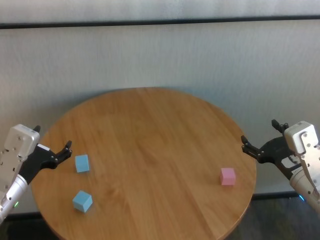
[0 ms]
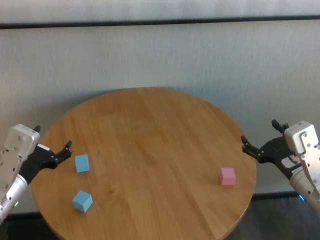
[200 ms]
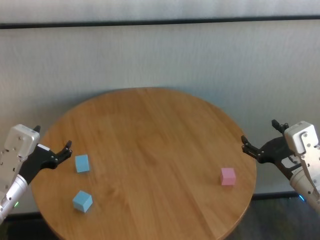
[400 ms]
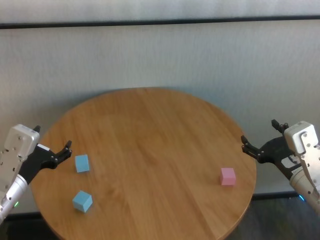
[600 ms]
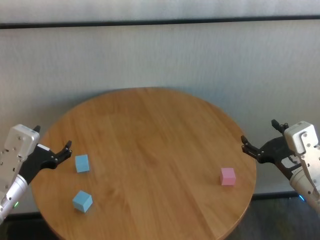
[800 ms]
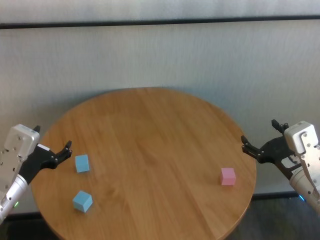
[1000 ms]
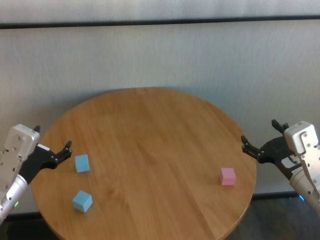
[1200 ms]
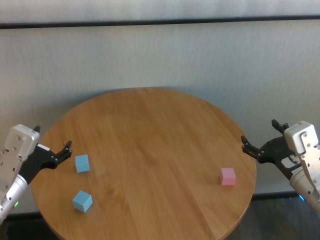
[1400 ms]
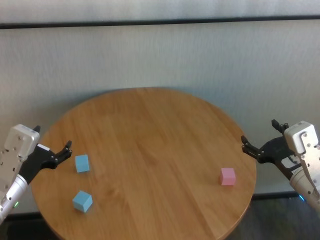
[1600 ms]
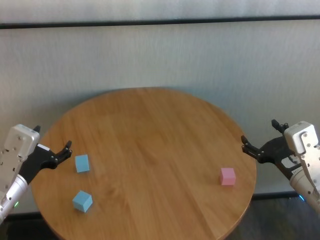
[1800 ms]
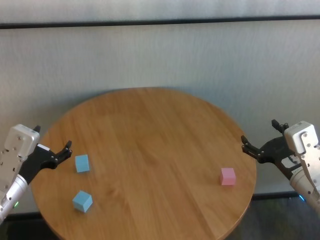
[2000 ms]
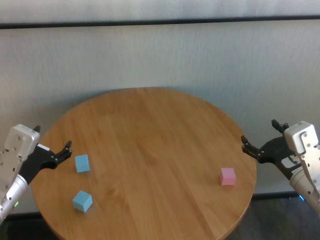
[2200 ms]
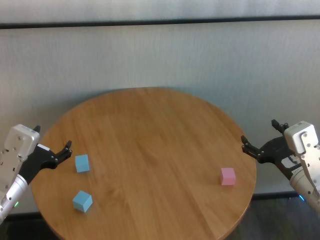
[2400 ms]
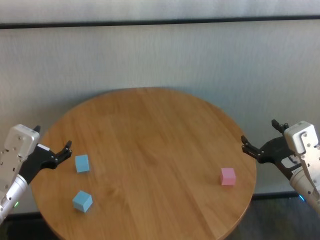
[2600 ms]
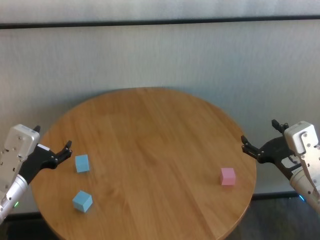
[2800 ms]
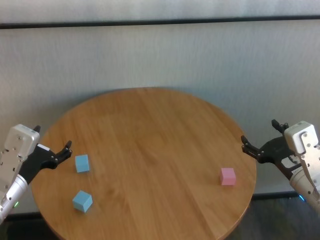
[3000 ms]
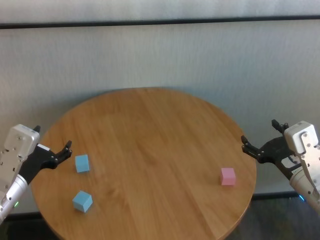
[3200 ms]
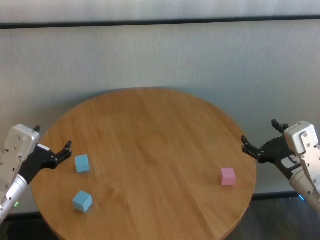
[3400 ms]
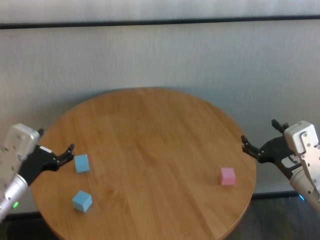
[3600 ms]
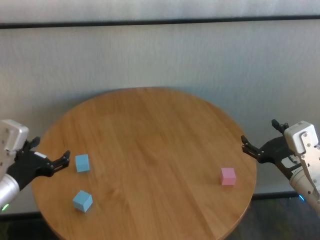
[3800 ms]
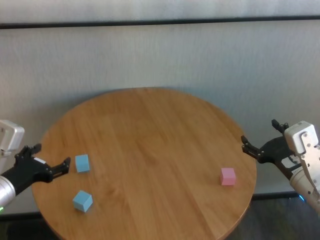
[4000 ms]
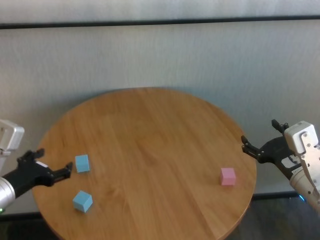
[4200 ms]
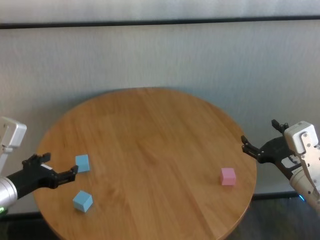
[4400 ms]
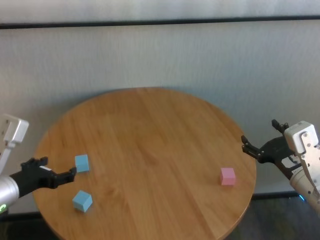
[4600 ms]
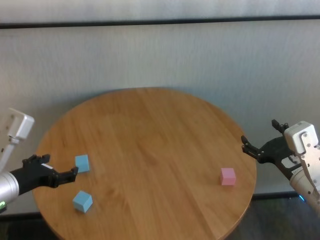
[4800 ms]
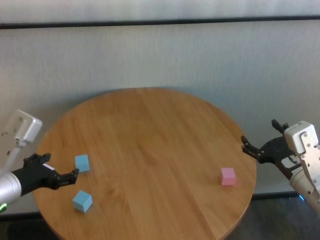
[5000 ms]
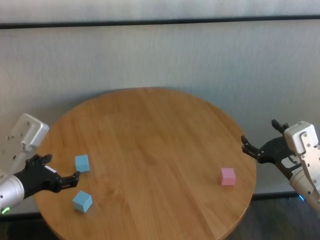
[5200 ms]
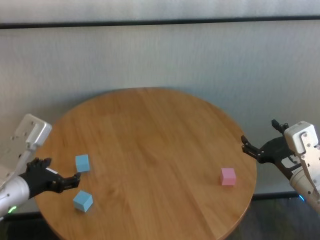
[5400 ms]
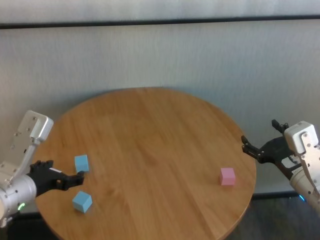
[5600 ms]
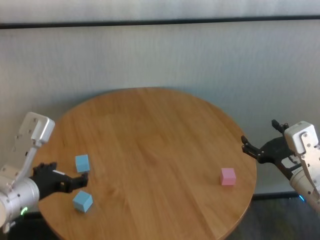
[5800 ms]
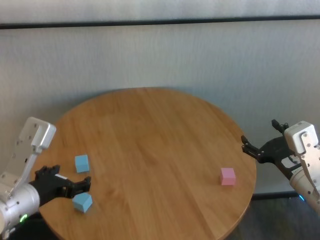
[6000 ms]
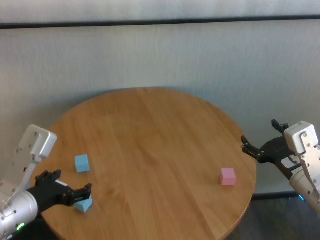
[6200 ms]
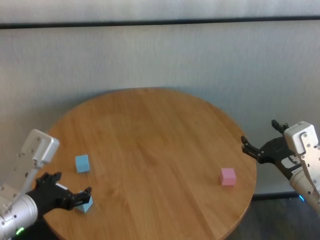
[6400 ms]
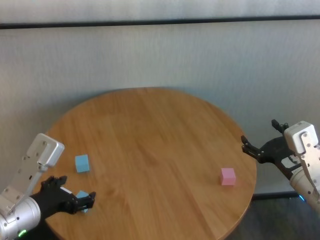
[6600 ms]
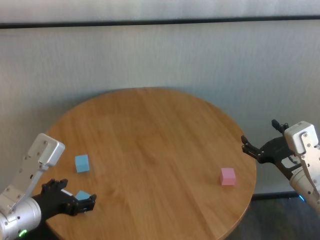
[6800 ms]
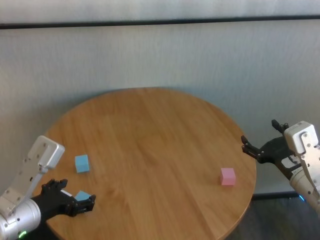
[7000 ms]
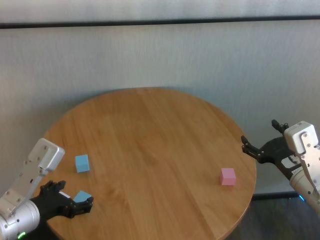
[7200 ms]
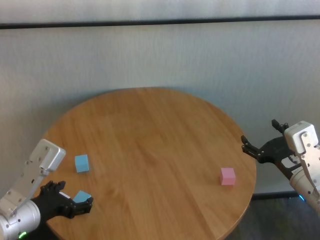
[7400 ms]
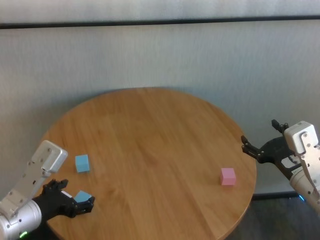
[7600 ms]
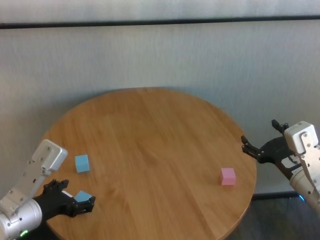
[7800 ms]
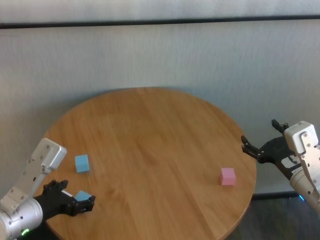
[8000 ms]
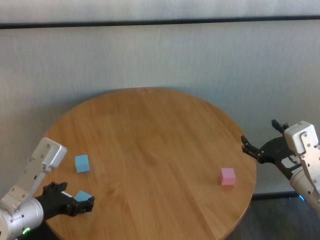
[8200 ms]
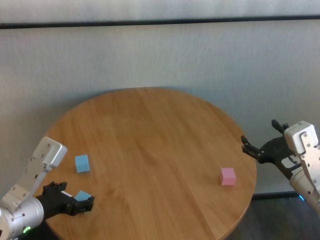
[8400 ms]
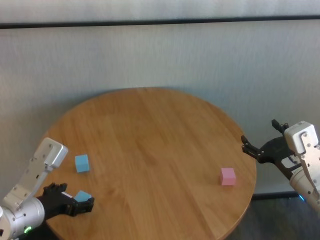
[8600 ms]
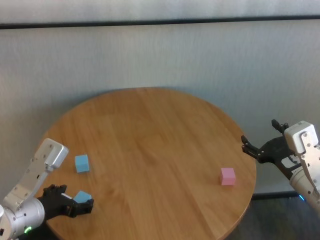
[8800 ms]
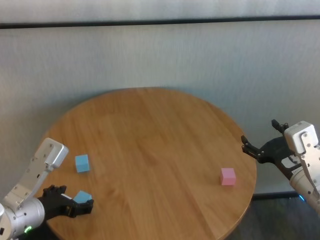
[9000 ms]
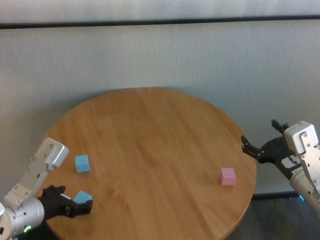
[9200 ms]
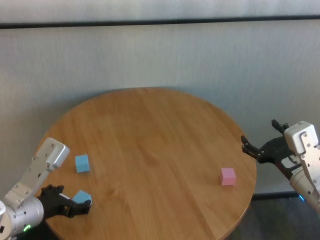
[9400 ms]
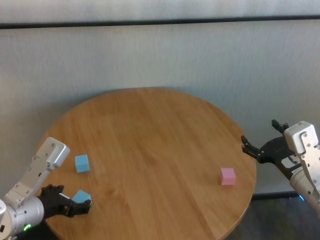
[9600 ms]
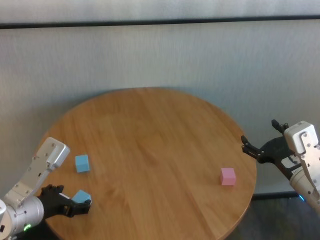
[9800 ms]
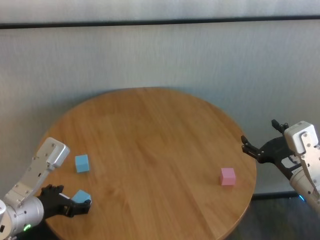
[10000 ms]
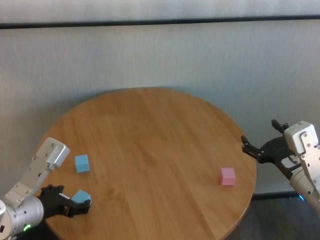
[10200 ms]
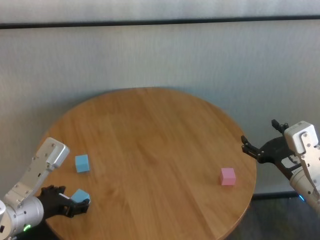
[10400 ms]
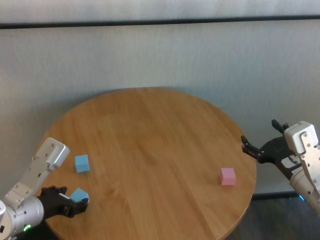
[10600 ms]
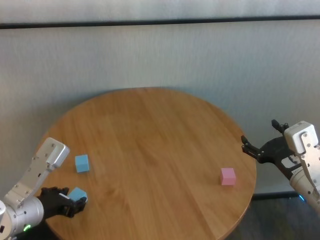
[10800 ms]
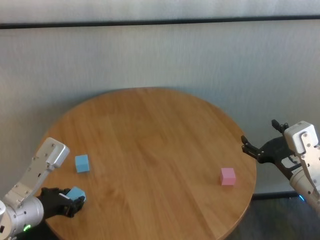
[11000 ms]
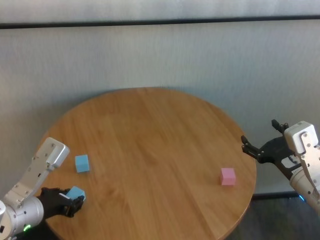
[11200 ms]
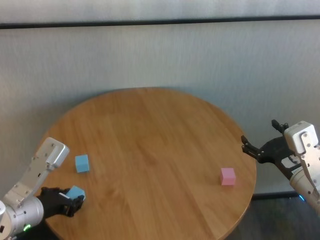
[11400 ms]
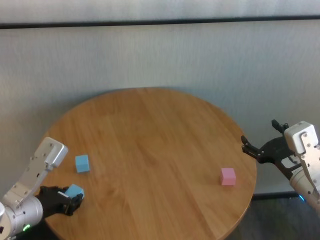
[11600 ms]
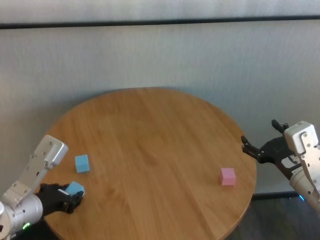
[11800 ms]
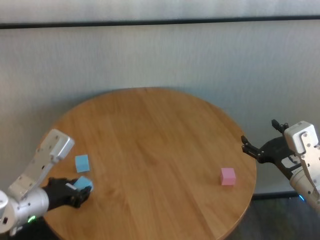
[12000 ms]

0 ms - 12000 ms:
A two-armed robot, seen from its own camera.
Task of the whole recording: stack building blocks on the table.
Step, 0 ms - 11000 ms: Grasp the blue building block with left gripper.

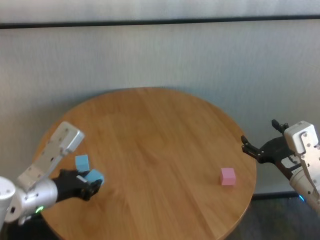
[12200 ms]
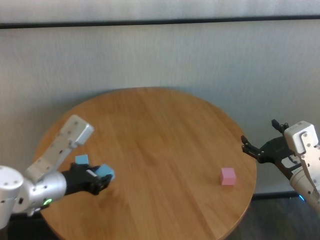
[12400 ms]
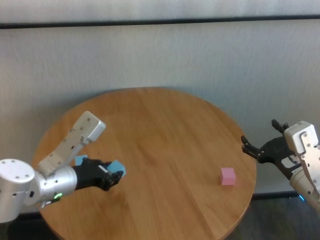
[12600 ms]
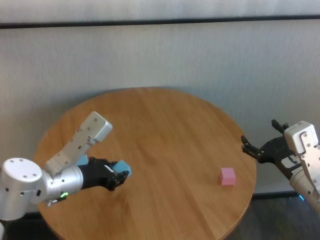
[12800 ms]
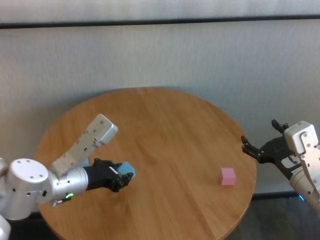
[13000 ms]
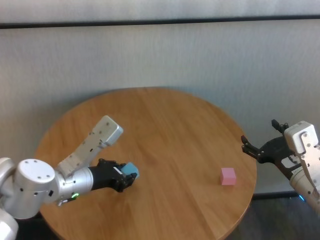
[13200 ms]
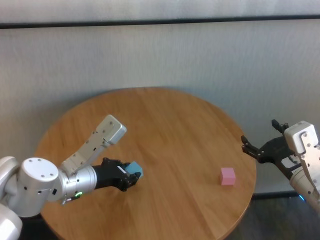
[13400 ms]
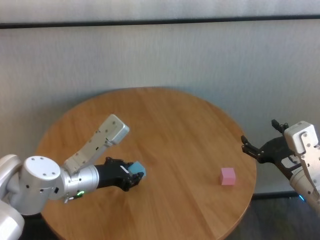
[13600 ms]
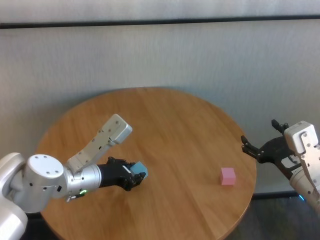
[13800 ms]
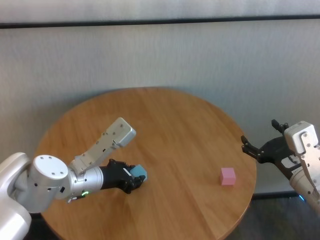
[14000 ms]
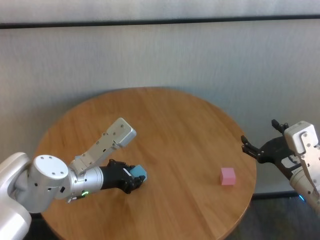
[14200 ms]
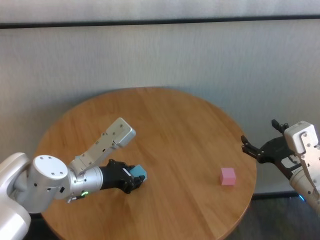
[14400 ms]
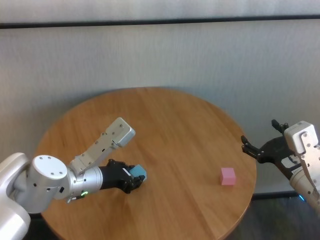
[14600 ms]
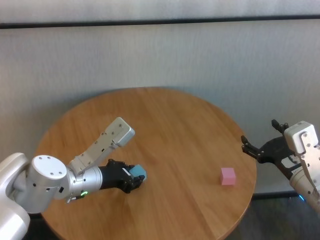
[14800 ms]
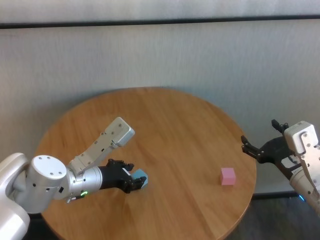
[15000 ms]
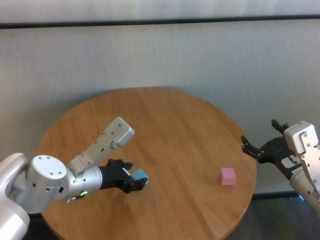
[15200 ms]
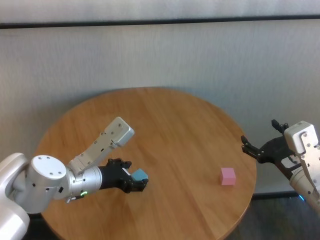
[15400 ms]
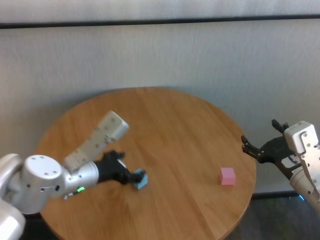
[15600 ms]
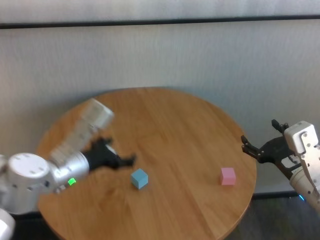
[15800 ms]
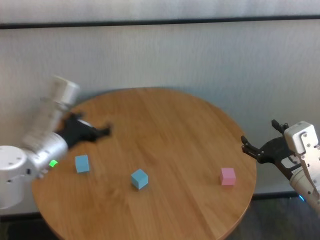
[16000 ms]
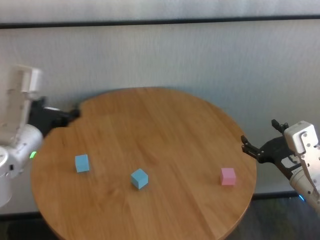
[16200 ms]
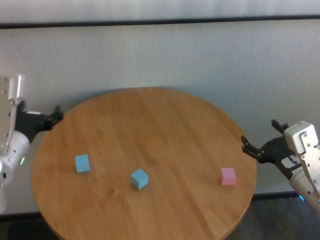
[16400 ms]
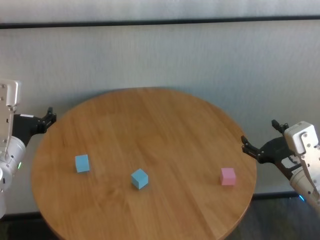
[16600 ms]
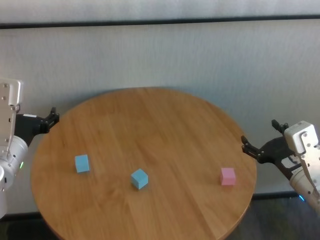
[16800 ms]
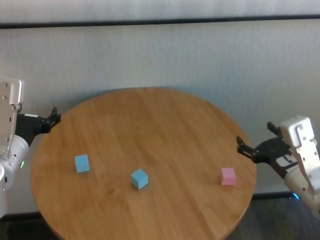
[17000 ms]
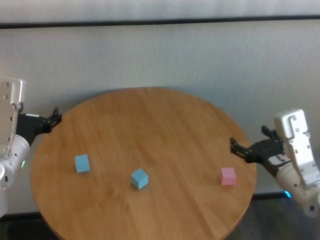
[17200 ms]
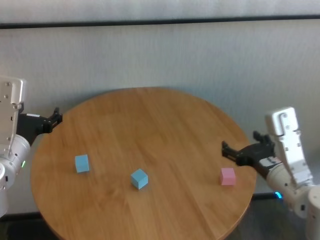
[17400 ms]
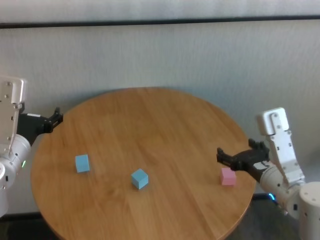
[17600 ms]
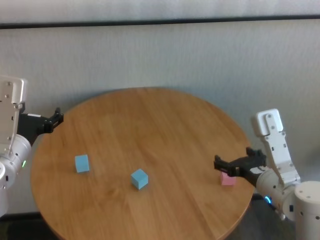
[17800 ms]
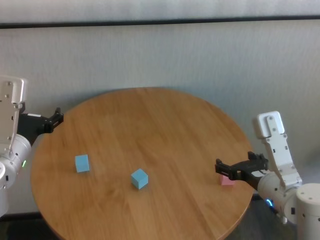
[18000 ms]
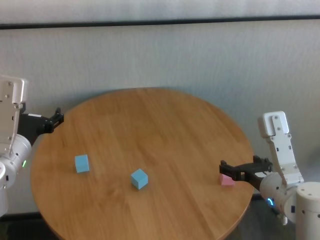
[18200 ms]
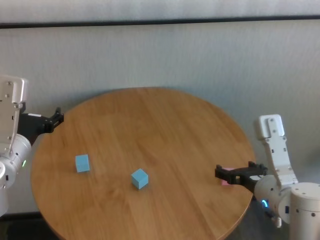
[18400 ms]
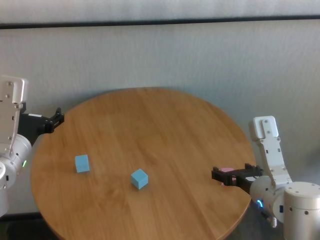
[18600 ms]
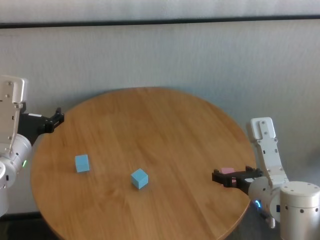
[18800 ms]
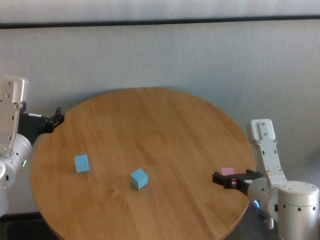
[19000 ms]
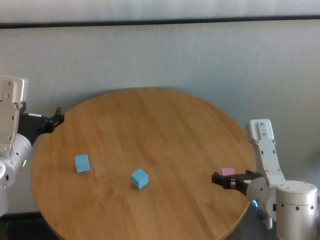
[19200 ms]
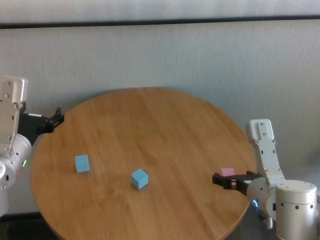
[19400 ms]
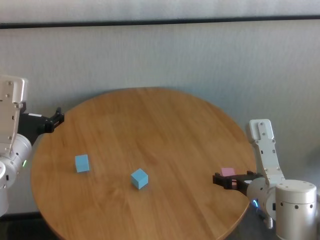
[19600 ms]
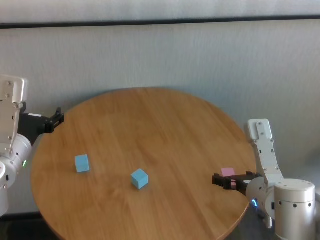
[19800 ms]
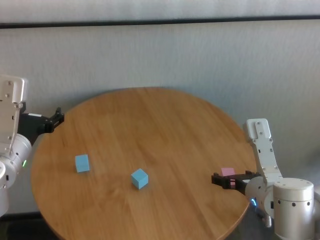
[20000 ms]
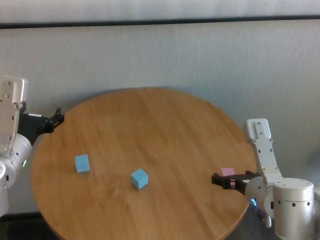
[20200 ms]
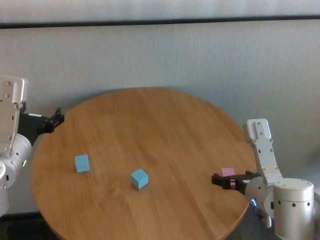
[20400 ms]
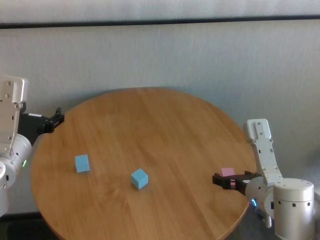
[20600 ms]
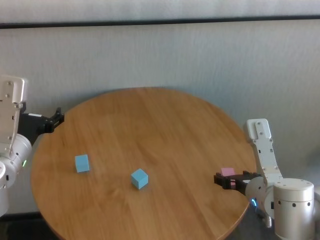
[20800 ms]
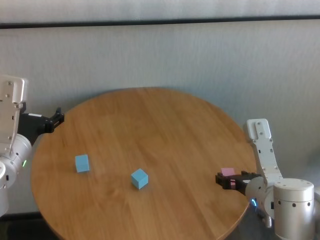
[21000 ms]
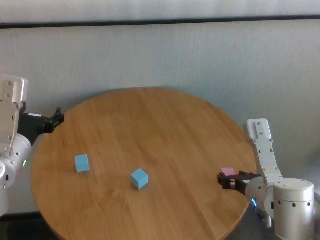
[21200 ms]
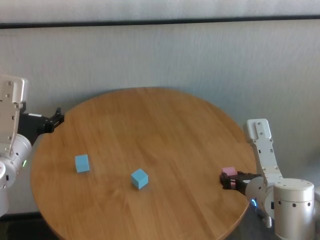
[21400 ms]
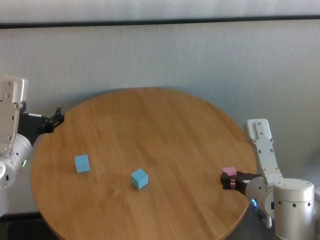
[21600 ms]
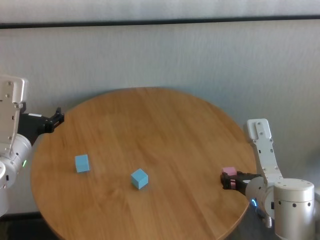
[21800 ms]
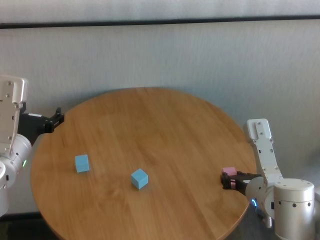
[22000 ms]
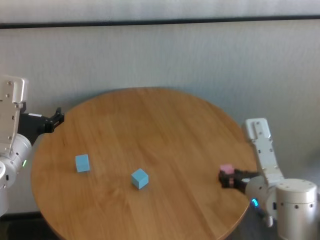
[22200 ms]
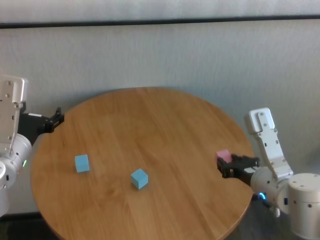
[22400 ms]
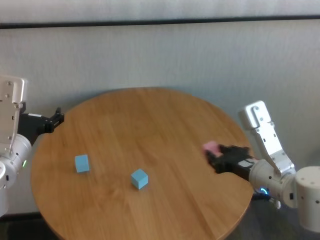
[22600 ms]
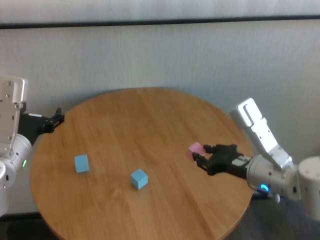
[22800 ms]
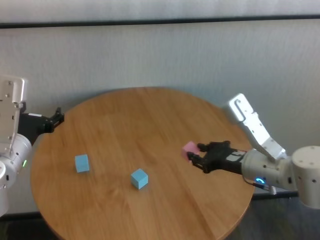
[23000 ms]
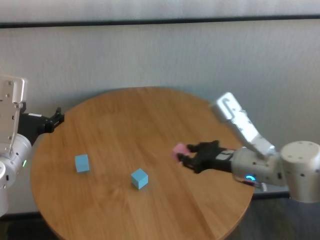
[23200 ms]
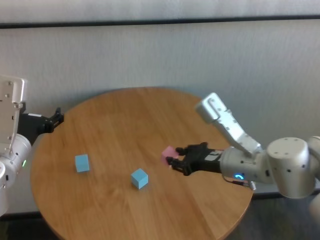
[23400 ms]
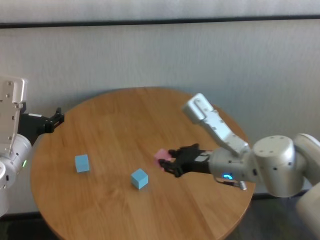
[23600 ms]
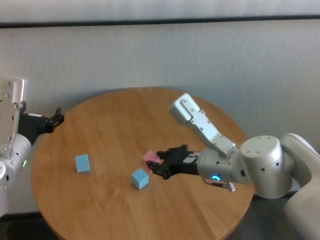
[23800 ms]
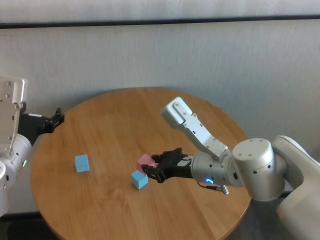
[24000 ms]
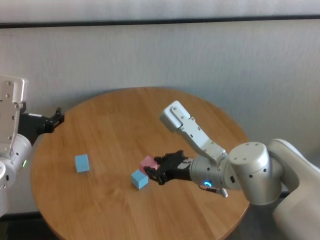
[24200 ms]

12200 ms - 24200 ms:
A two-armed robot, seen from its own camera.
Task of the whole recording: stack building blocks on the table.
Step, 12200 ms - 15000 ms: Place the blue building block in the center of table with left gripper.
Step, 15200 ms - 21400 ms: Grasp the pink building block with right gripper.
